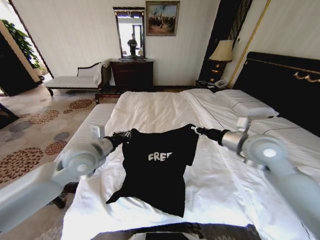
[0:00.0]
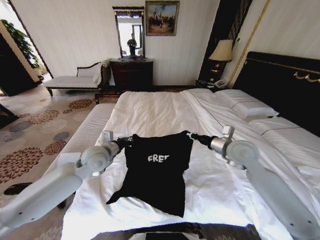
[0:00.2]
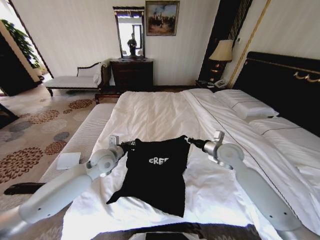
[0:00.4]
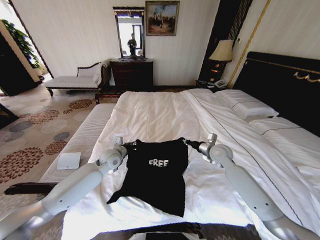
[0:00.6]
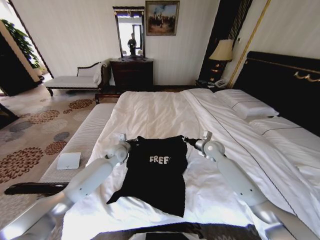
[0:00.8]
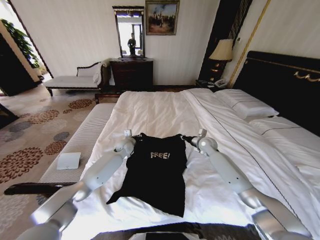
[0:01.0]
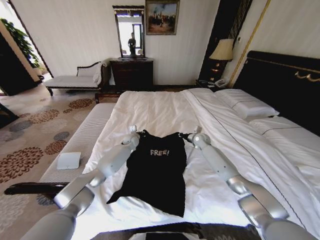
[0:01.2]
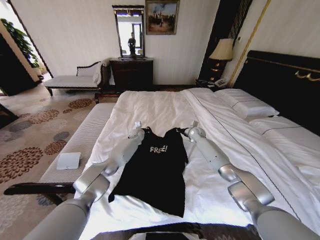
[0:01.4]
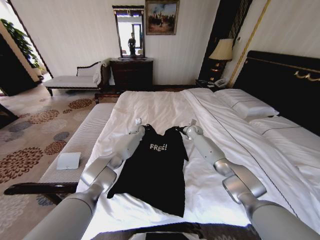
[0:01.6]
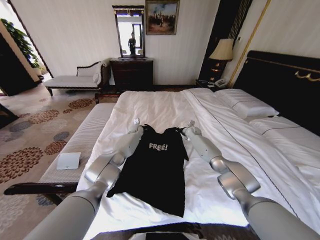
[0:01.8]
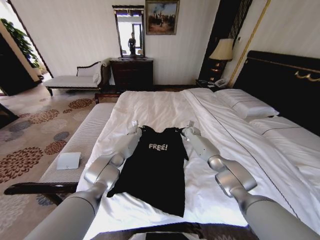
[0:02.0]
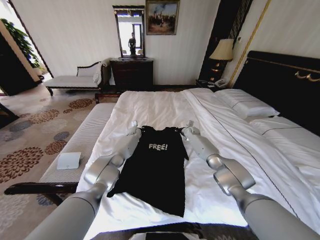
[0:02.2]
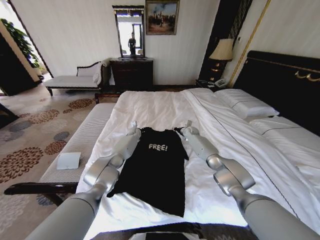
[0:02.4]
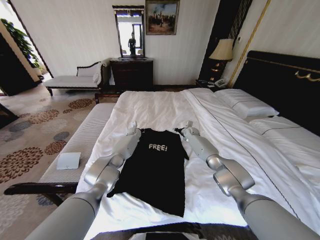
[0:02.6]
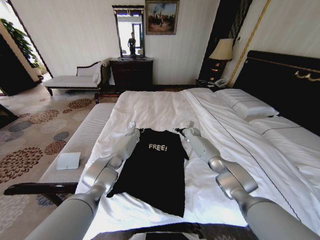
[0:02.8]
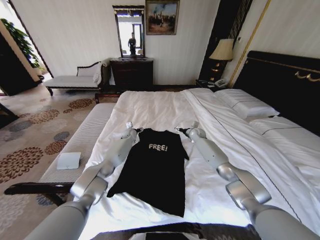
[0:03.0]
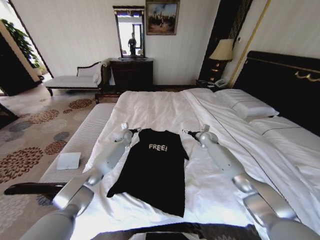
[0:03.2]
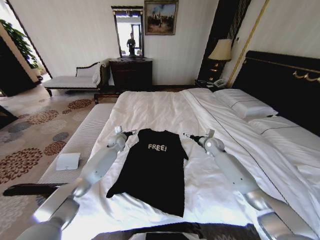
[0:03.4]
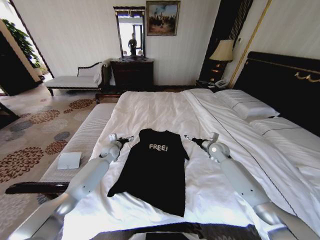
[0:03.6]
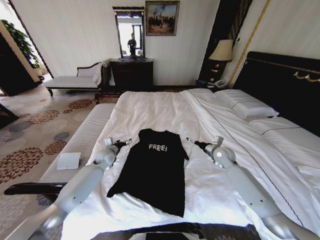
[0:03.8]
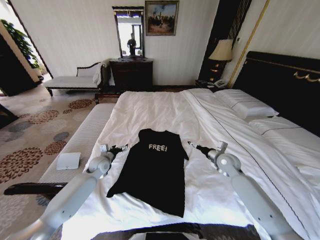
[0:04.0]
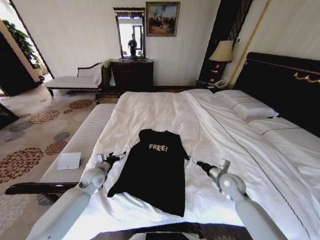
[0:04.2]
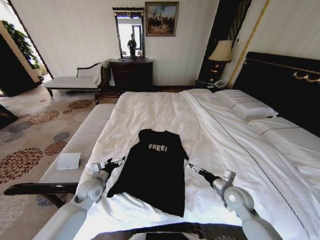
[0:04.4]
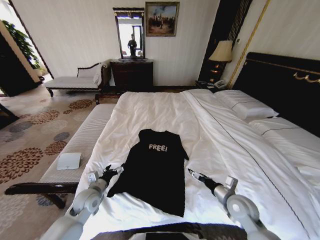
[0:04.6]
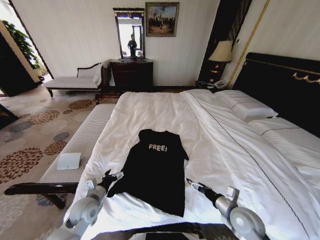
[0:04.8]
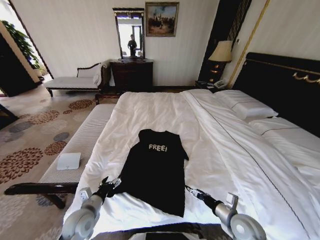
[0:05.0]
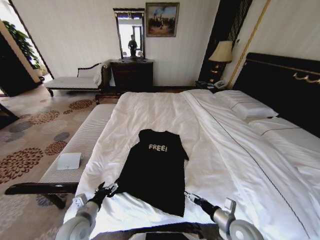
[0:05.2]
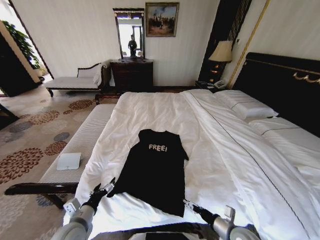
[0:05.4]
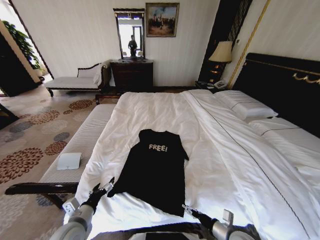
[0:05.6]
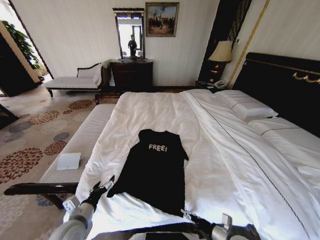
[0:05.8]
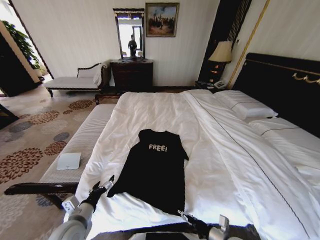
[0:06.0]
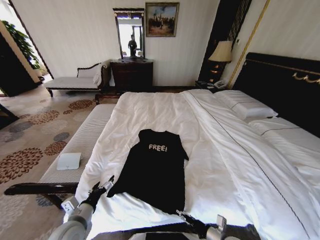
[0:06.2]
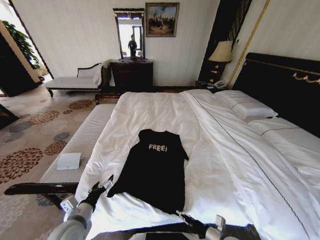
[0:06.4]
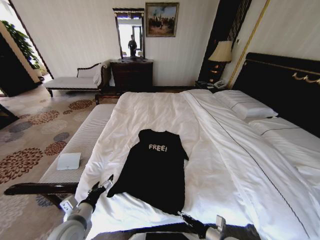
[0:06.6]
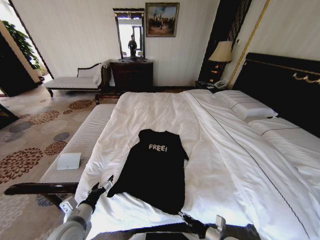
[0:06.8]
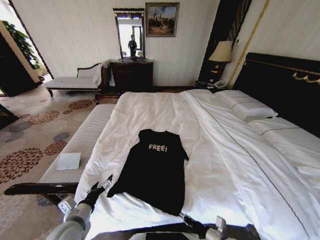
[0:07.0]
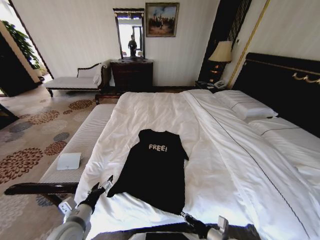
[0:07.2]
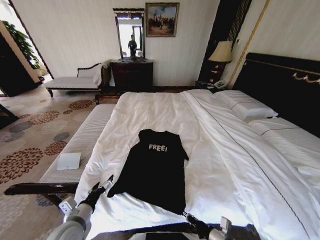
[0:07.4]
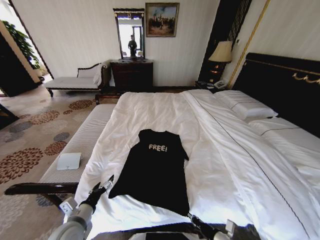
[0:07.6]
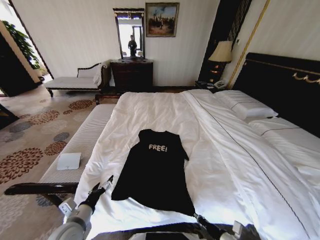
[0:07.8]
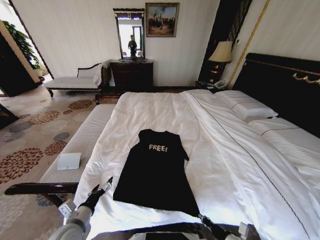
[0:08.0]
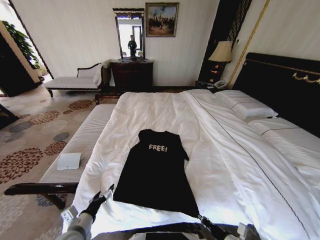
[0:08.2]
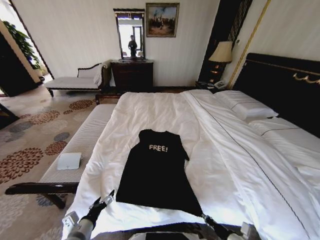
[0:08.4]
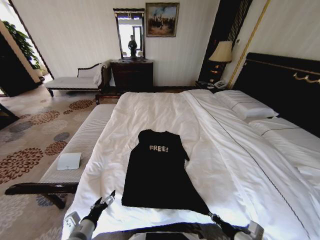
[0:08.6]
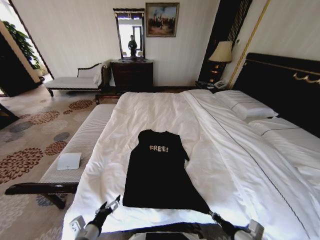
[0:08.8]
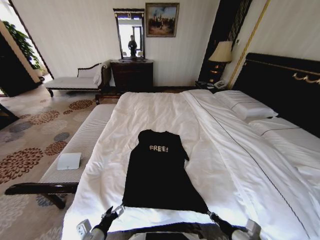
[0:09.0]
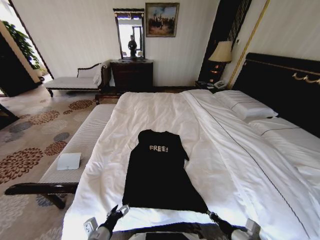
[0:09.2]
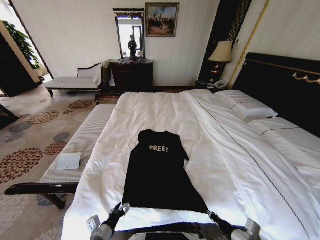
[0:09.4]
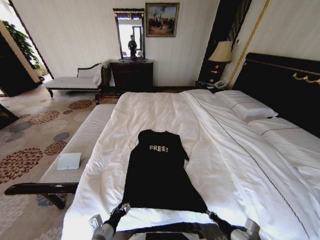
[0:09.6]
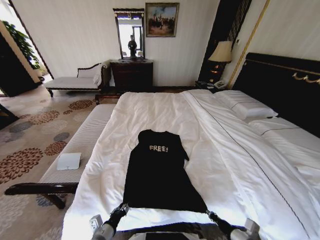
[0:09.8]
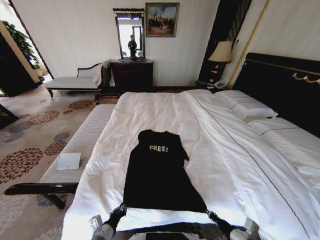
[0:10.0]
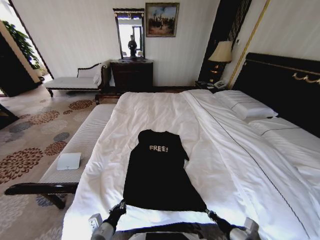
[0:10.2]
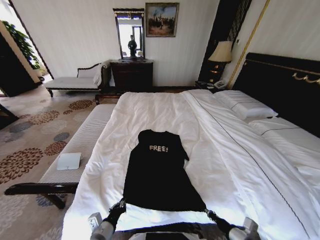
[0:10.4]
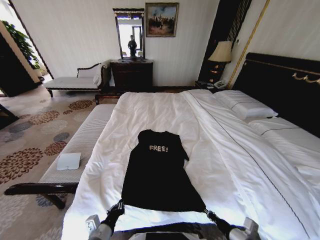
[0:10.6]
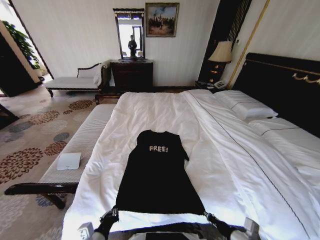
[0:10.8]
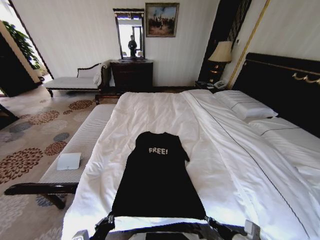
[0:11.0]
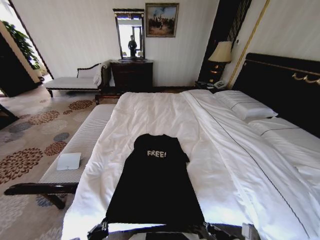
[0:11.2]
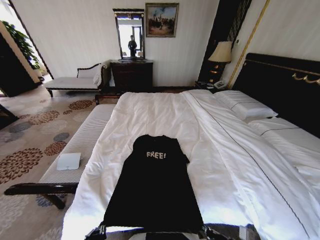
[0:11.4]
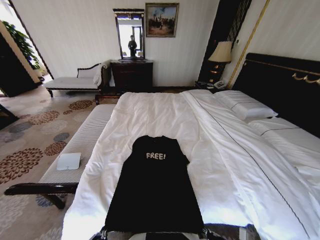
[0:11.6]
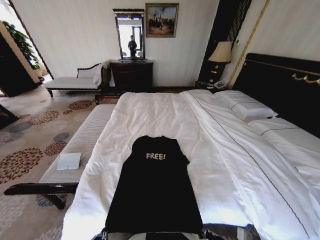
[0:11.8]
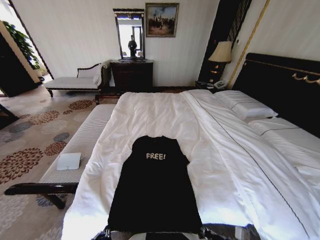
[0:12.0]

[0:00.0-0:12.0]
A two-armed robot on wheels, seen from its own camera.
Task of the whole recording: Fold the clothes on the bed.
0:00.0 to 0:01.6: Both grippers travel together forward and downward, roughly 40 cm.
0:01.6 to 0:03.0: The right gripper opens. The left gripper goes approximately 5 cm to the left, and opens its fingers.
0:03.0 to 0:04.4: Both grippers travel together backward, about 35 cm.
0:04.4 to 0:06.0: The right gripper is displaced backward and downward by some 20 cm. The left gripper heads backward, covering roughly 15 cm.
0:06.0 to 0:07.6: The right gripper closes its fingers.
0:07.6 to 0:09.0: The left gripper shifts approximately 10 cm downward and backward. The right gripper heads to the right, covering roughly 5 cm.
0:09.0 to 0:10.4: The left gripper closes.
0:10.4 to 0:12.0: The left gripper moves backward, about 10 cm, while the right gripper shifts by roughly 5 cm.

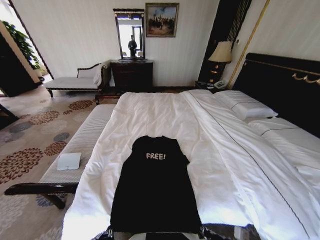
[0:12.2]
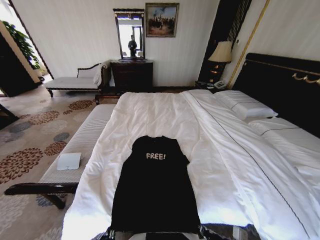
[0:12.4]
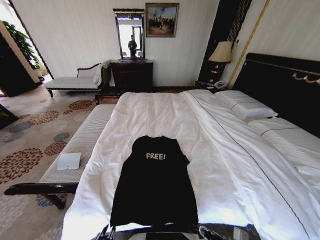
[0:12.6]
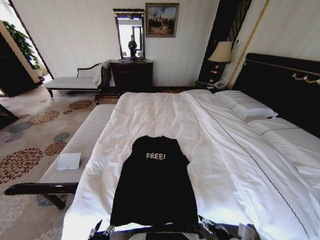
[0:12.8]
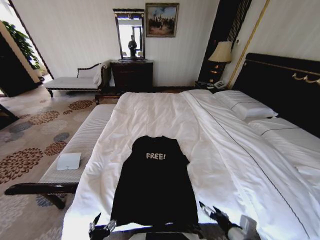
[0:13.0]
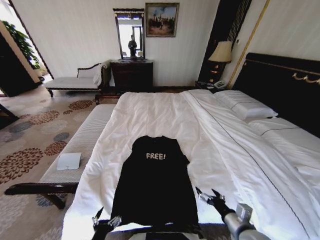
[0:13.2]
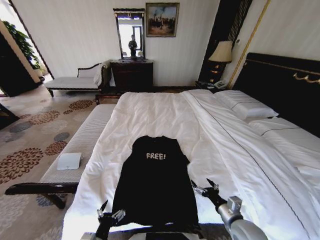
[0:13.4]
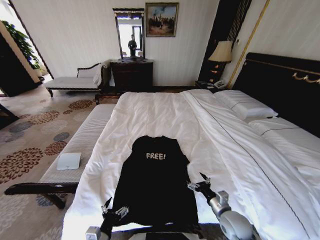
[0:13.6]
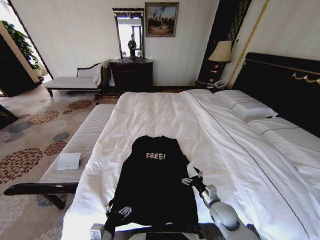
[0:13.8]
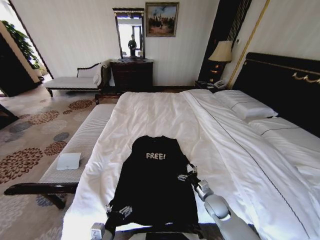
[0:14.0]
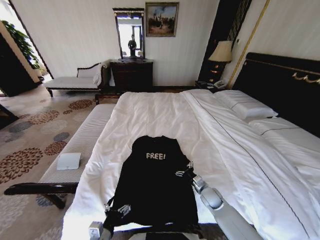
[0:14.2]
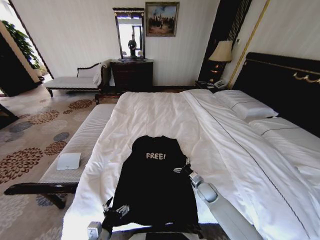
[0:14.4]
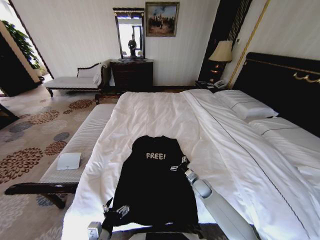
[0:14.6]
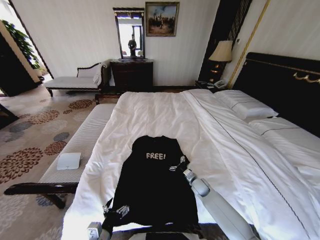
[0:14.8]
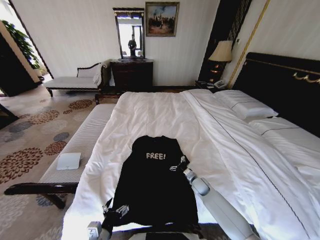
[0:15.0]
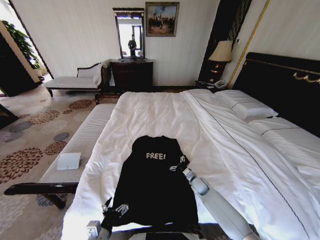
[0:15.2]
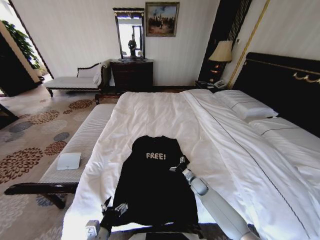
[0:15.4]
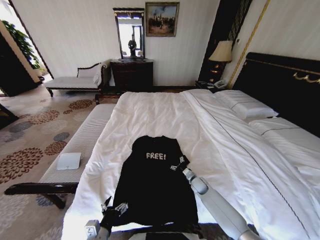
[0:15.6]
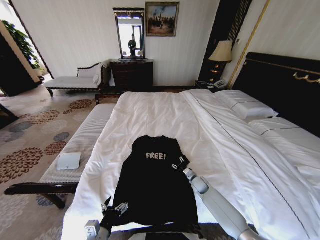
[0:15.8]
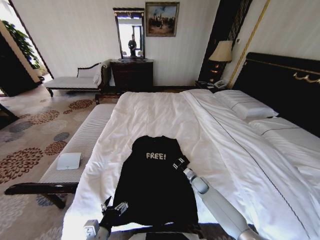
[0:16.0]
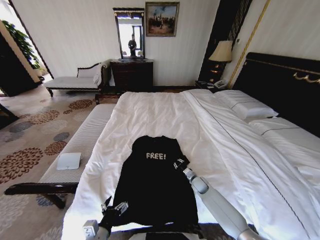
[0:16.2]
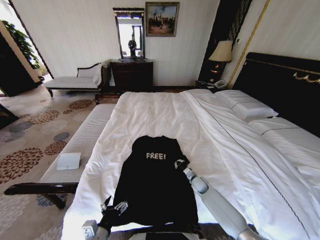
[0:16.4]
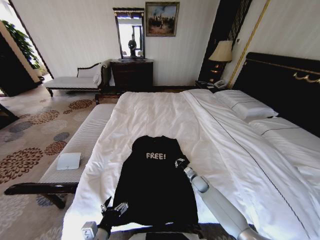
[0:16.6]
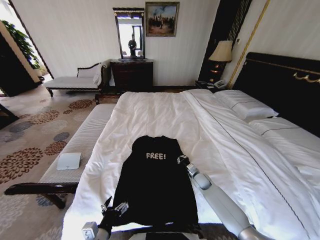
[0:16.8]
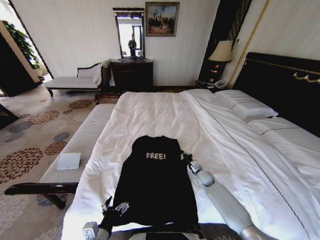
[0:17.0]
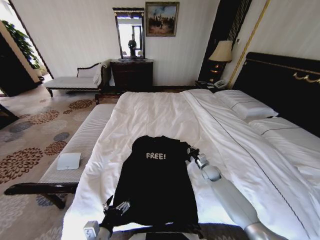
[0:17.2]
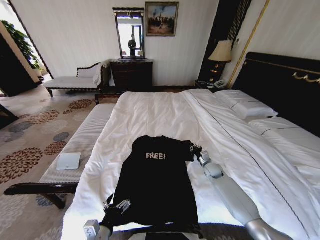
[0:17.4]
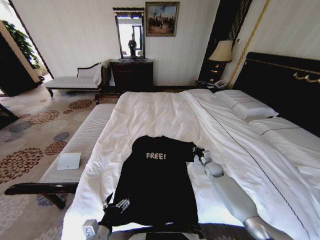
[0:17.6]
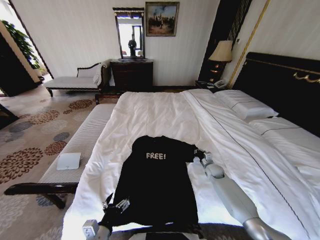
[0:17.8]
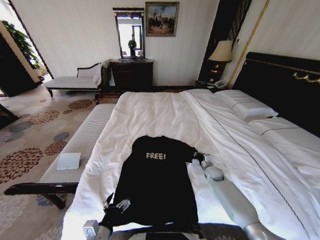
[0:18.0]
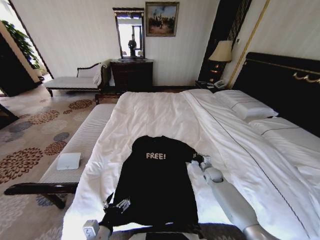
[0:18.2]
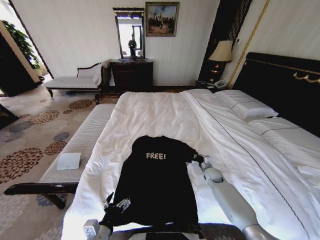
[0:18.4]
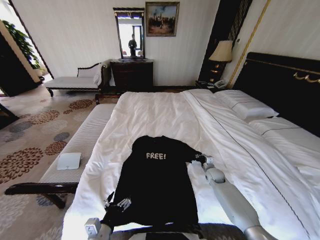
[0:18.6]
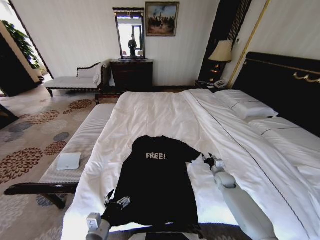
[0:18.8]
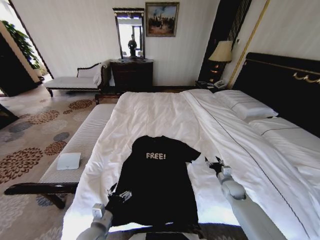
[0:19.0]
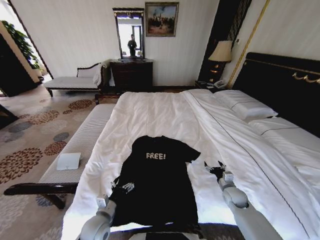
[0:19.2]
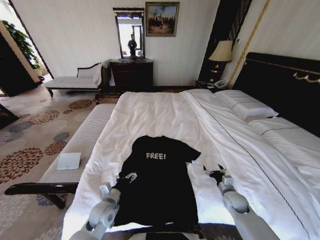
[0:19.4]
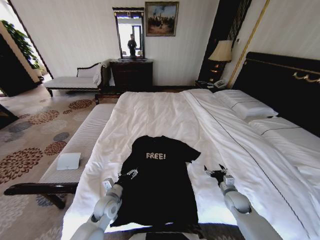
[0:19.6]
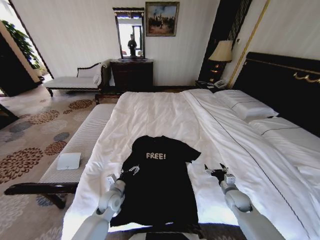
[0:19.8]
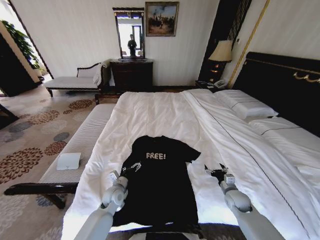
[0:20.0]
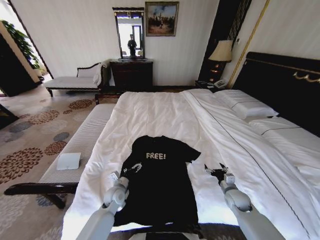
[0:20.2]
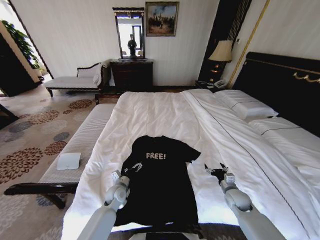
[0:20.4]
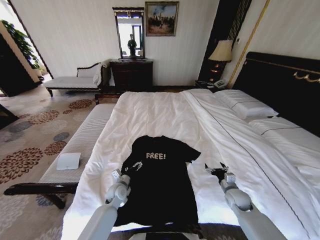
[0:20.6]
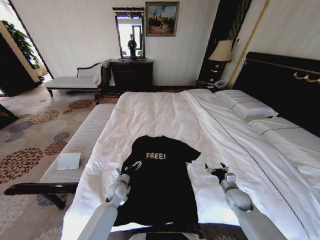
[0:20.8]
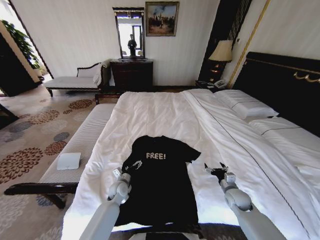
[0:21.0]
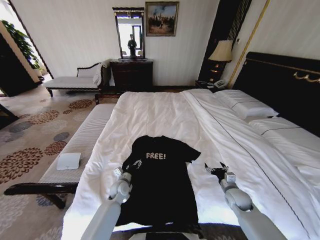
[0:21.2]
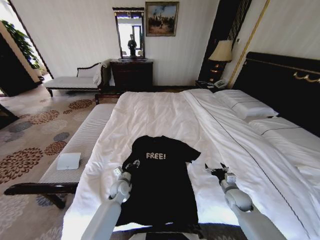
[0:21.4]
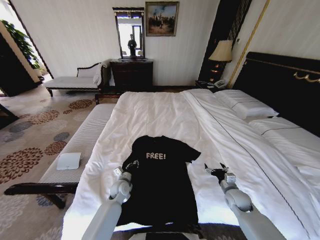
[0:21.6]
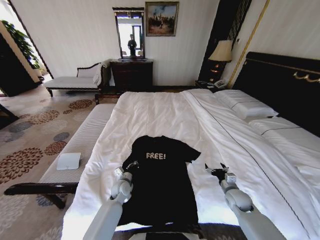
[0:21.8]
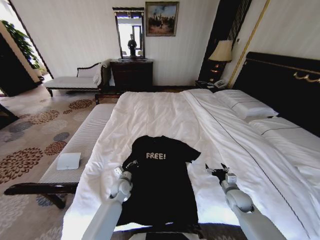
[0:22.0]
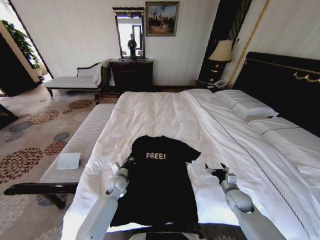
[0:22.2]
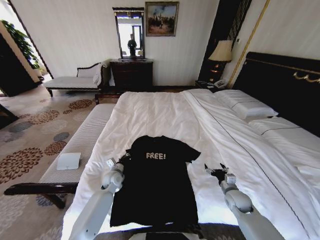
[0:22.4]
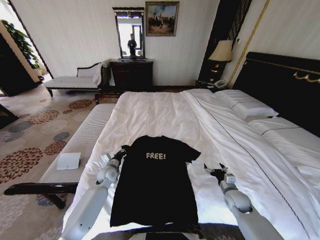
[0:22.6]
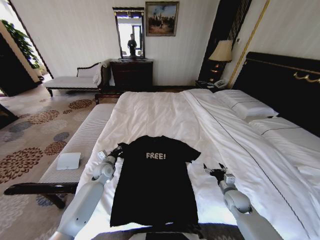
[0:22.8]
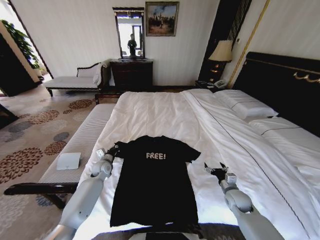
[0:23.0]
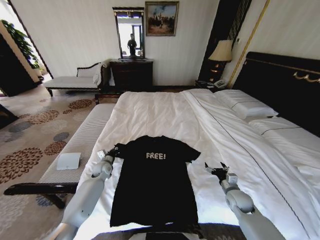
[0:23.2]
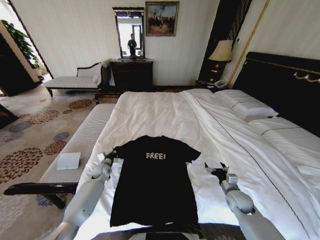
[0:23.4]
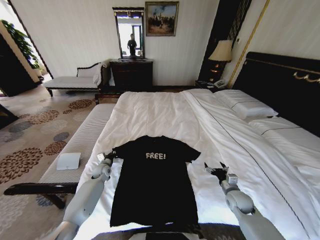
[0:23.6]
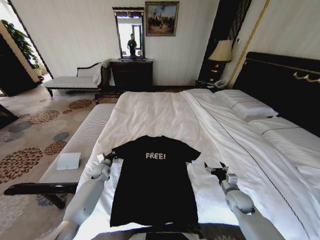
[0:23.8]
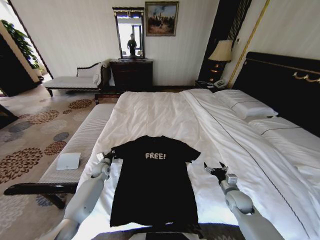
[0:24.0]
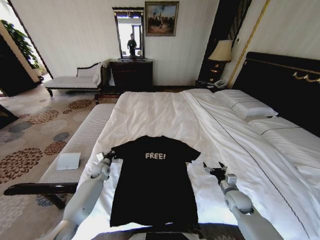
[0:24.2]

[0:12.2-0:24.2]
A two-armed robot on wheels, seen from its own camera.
Task of the whole recording: Fold the clothes on the bed.
0:12.2 to 0:13.8: The right gripper moves forward, some 15 cm, and opens; the left gripper goes about 5 cm forward, and opens up.
0:13.8 to 0:15.2: The right gripper is displaced forward and downward by about 15 cm.
0:15.2 to 0:16.6: The right gripper closes up.
0:16.6 to 0:18.2: The right gripper travels to the right by some 5 cm.
0:18.2 to 0:19.8: The right gripper shifts approximately 15 cm backward, and opens up; the left gripper goes some 20 cm forward.
0:19.8 to 0:21.2: The left gripper moves forward, some 5 cm.
0:21.2 to 0:22.6: The left gripper shifts approximately 10 cm to the left, forward and upward, and closes up.
0:22.6 to 0:24.2: The left gripper heads to the left, covering some 5 cm.
